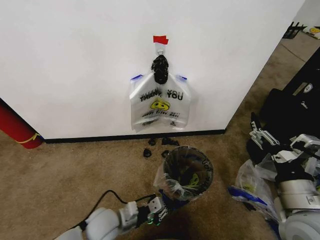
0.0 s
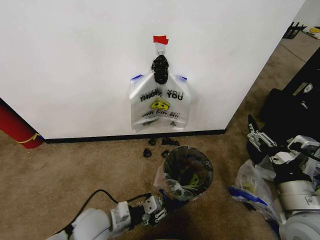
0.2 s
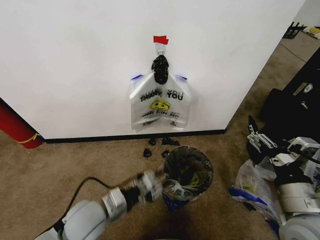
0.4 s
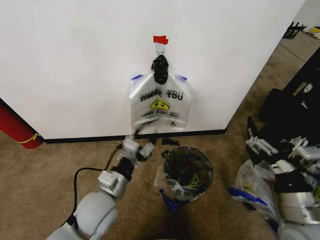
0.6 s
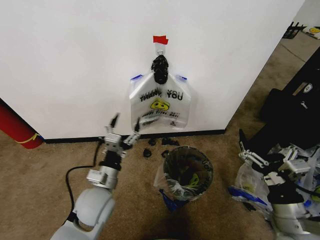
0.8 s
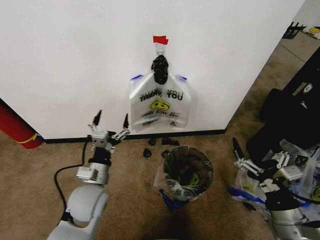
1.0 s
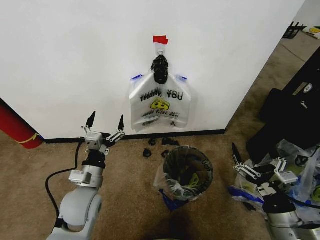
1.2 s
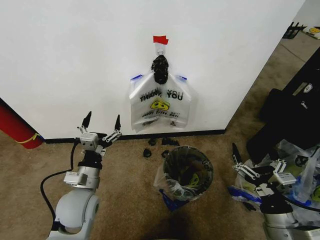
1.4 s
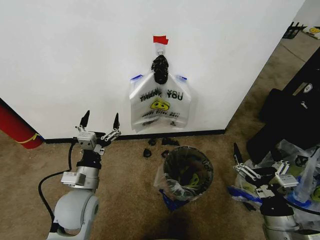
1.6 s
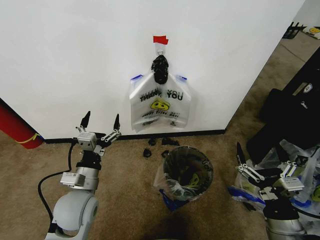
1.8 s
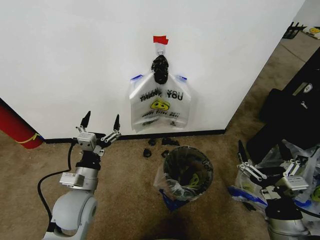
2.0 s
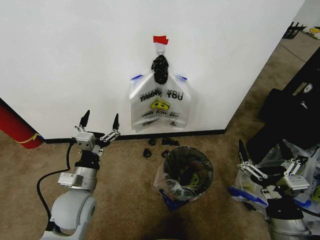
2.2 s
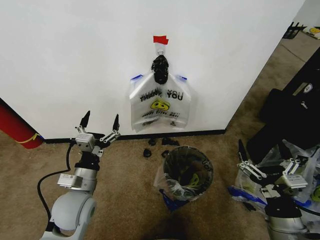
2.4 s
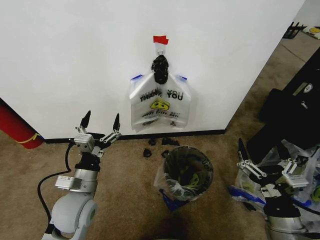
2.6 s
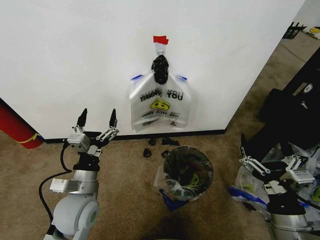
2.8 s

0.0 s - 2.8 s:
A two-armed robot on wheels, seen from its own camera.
Task of the whole recording: Pick up the garbage bag from the wall and place it over the trash bin.
0.0 s - 1.4 s: The left gripper goes approximately 10 cm upward, and opens its fingers. The right gripper is displaced downward by some 10 cm.
1.4 s - 2.8 s: The grippers move only a little.
